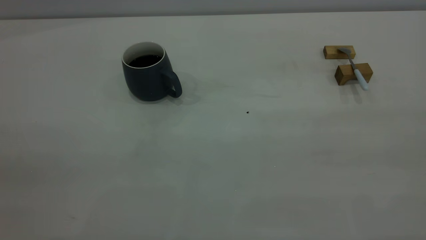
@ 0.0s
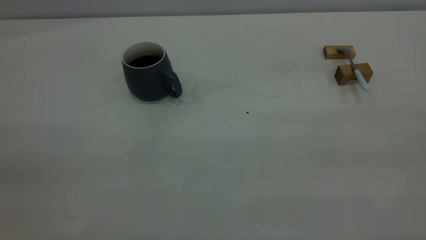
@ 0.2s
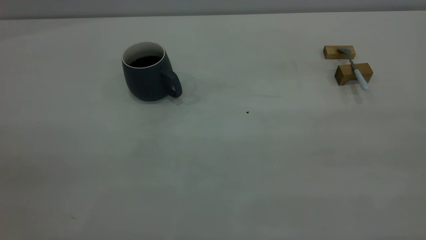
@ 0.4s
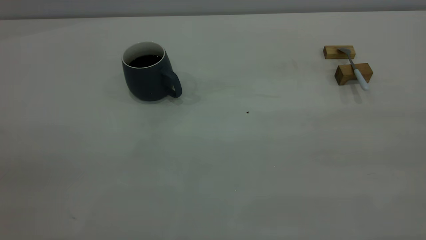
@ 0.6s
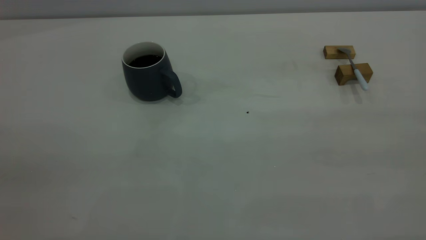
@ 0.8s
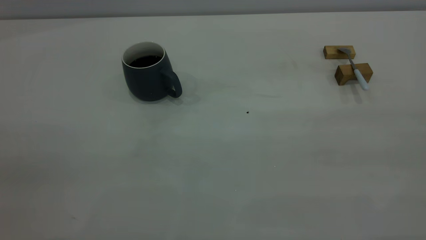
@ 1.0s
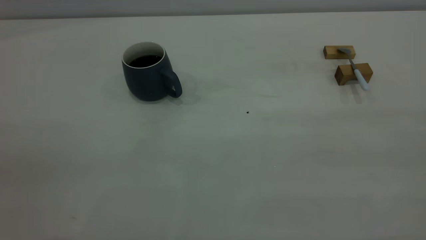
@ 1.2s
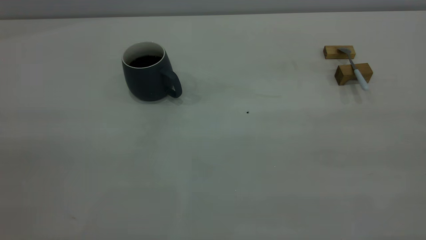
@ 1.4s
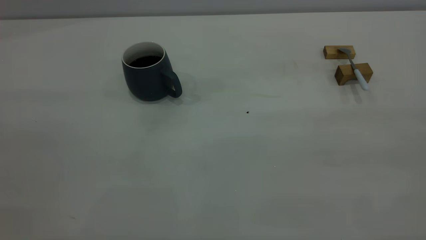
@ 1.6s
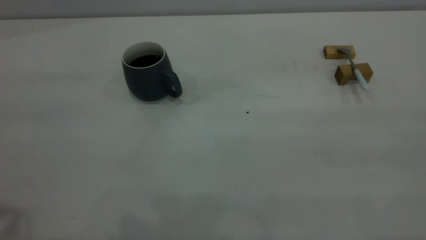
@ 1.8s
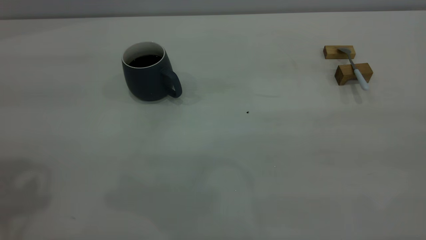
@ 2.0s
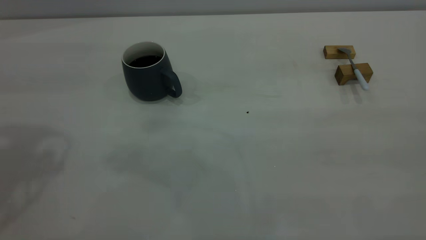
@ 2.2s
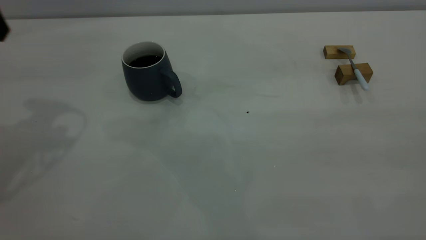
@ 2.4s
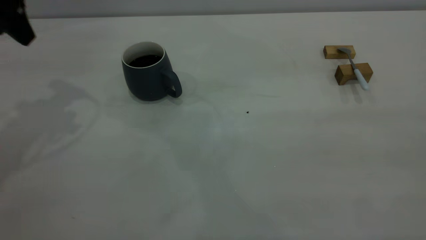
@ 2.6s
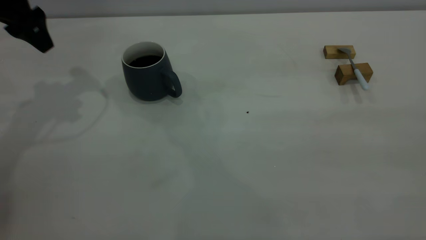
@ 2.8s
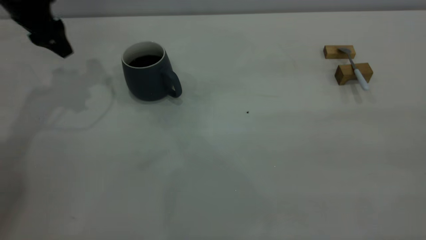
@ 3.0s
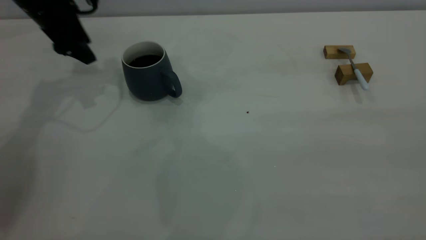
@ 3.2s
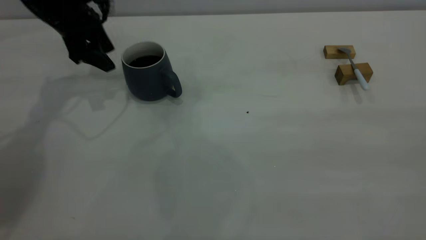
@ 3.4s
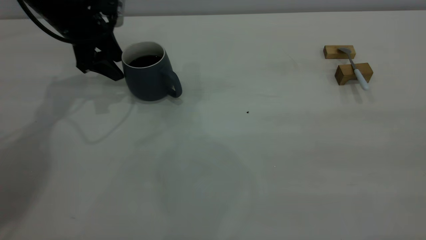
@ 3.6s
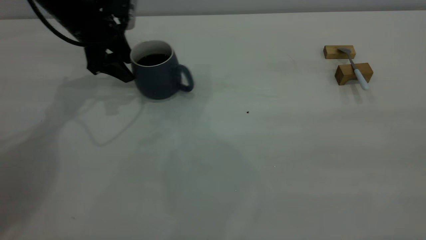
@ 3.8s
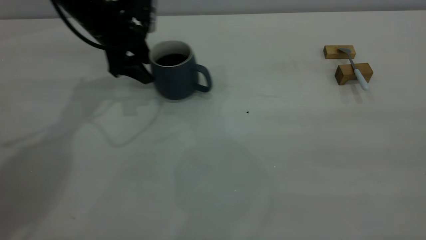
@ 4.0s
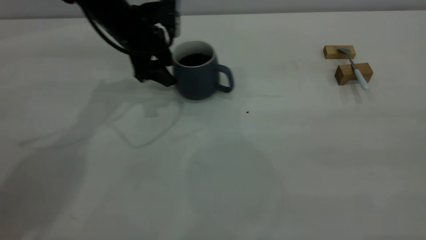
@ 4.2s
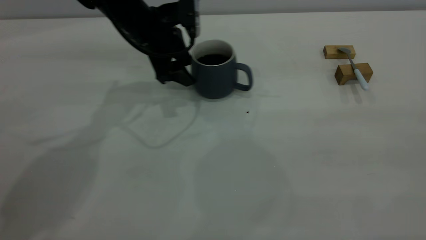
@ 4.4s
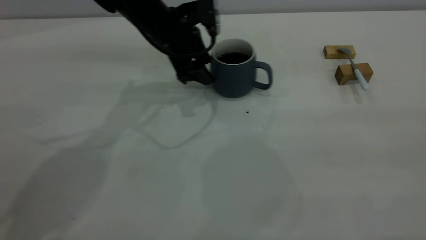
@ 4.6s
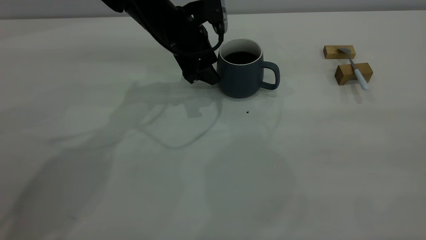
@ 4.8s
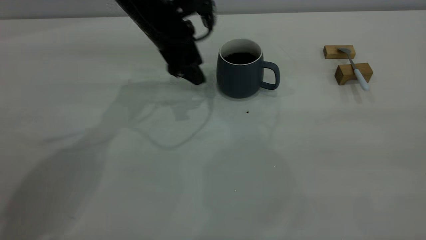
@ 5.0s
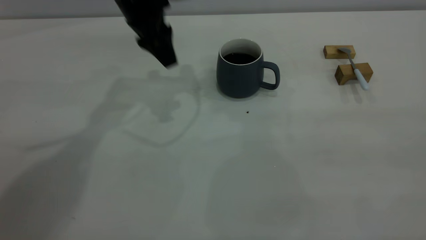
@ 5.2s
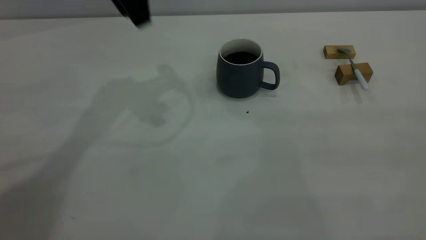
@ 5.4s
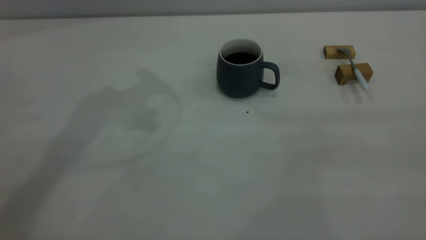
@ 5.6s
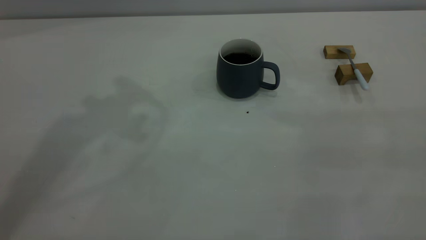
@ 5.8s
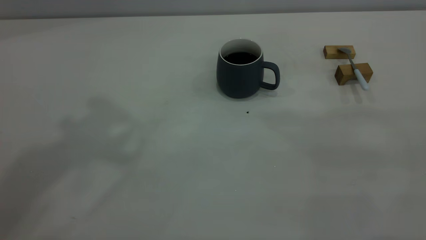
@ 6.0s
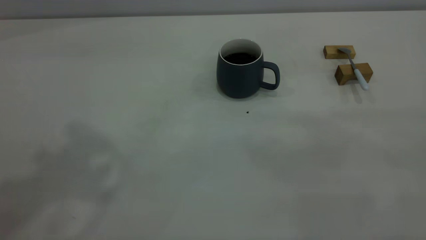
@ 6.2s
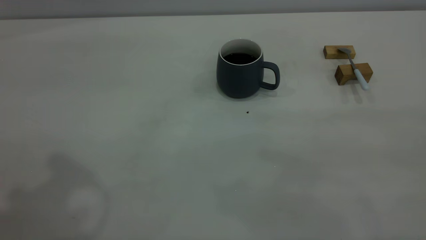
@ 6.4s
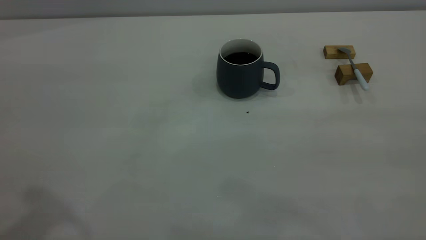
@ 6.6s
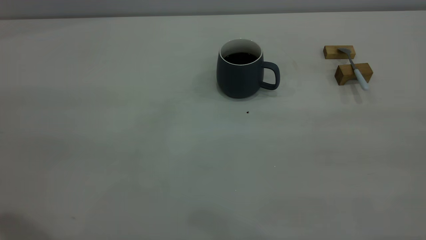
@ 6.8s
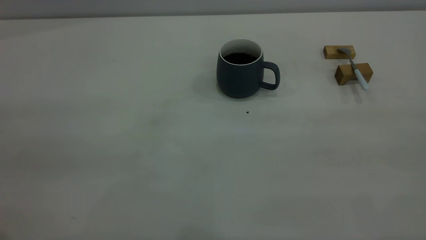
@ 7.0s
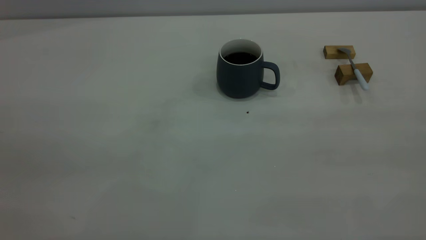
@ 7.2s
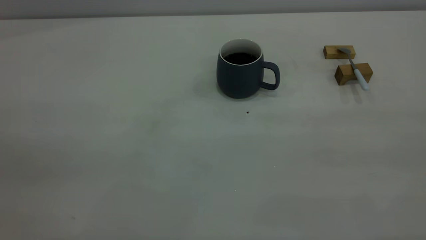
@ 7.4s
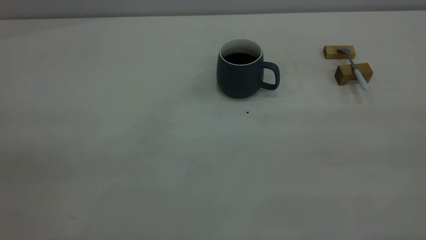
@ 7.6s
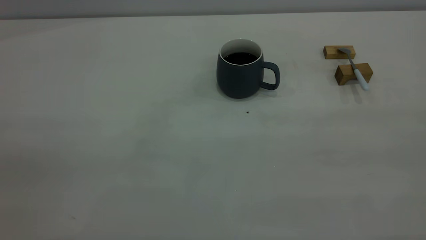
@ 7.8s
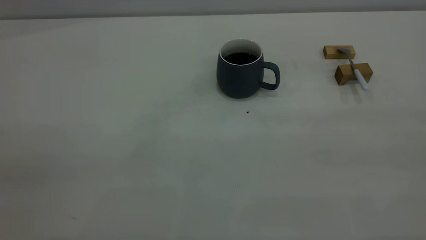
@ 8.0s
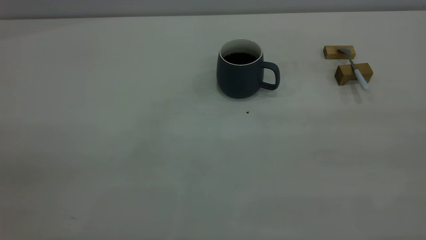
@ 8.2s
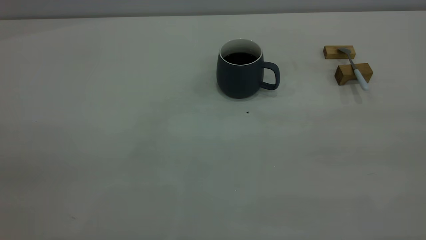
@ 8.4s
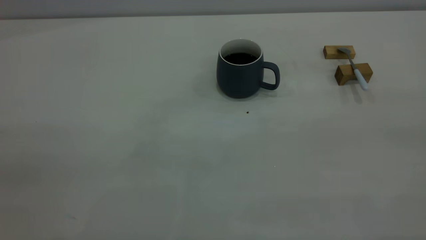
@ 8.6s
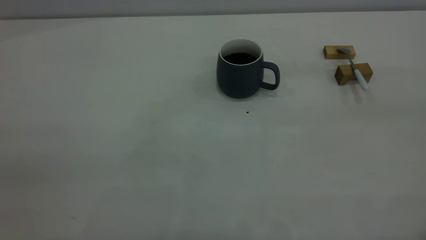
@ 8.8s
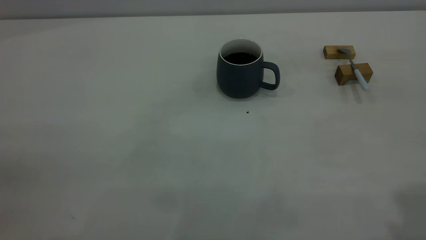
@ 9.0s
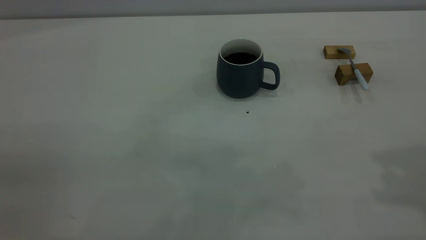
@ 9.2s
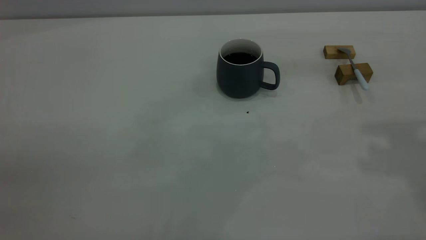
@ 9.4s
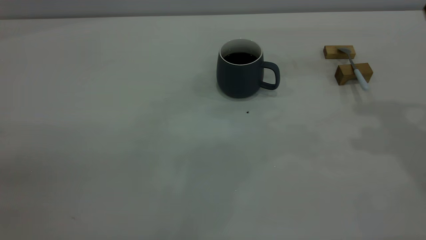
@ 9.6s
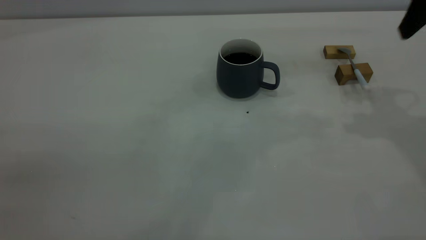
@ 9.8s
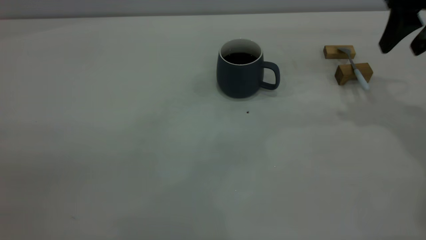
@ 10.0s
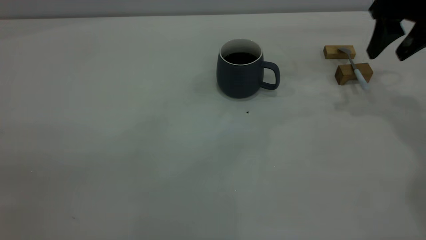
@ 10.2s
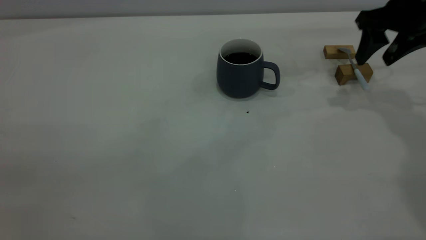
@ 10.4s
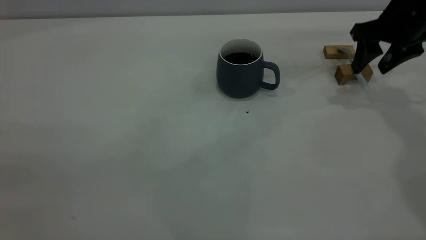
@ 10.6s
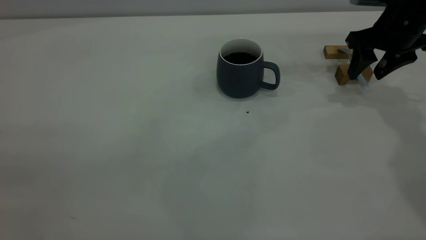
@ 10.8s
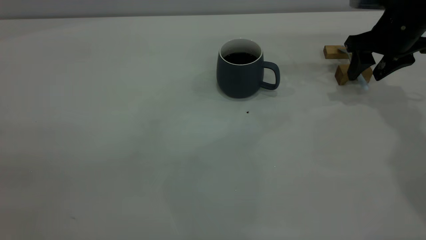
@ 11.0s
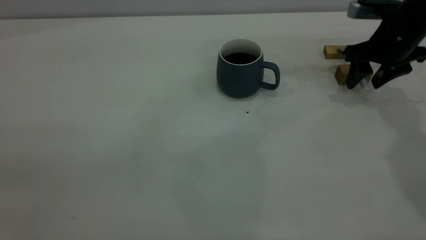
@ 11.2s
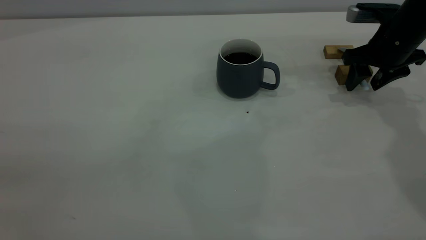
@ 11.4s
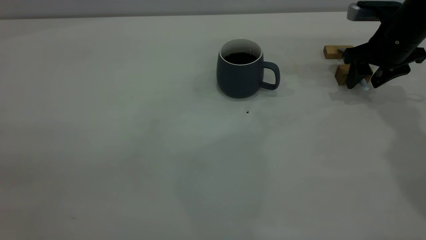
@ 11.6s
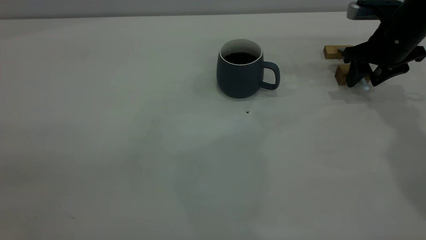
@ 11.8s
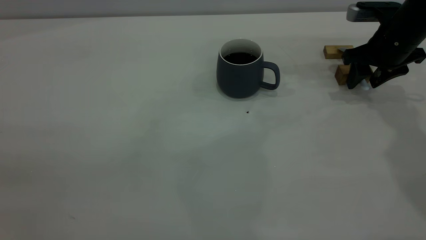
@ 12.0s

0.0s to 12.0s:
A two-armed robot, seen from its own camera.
Step, 0.0s to 5.0s: Move the cup with coffee to the center of view.
1.6s to 3.0s: The left gripper heads forward and downward, covering some 40 cm.
3.0s to 4.4s: The left gripper is displaced to the right and downward by some 20 cm.
4.4s to 6.0s: The left gripper shifts roughly 40 cm upward and backward.
9.0s to 10.4s: The right gripper is displaced forward and downward by some 35 cm.
10.4s to 12.0s: The right gripper shifts approximately 5 cm downward.

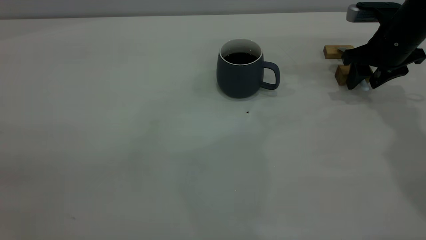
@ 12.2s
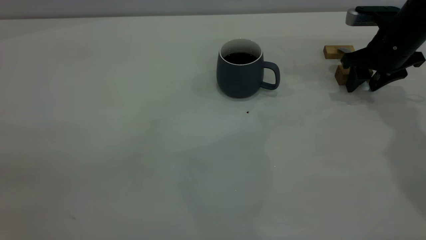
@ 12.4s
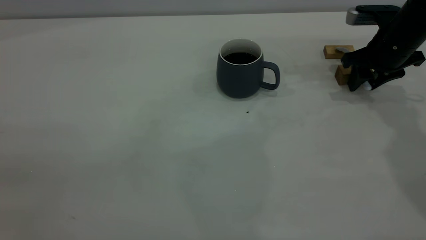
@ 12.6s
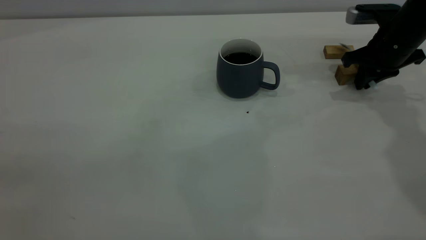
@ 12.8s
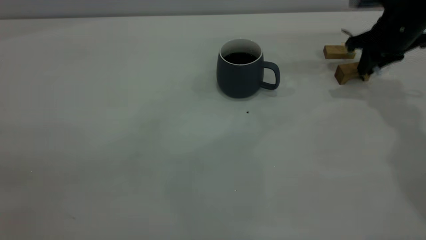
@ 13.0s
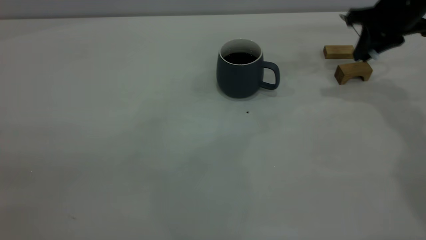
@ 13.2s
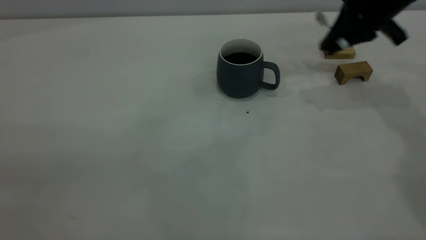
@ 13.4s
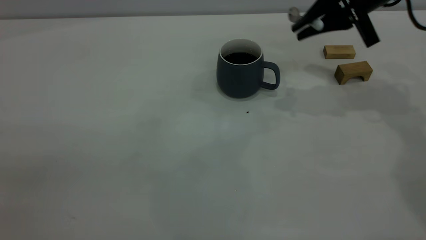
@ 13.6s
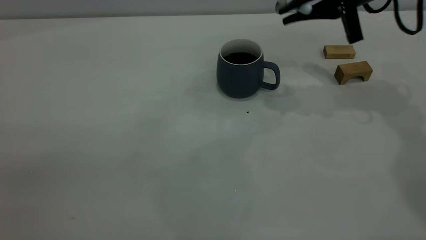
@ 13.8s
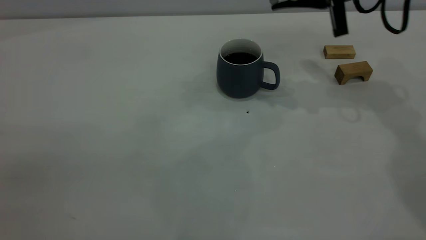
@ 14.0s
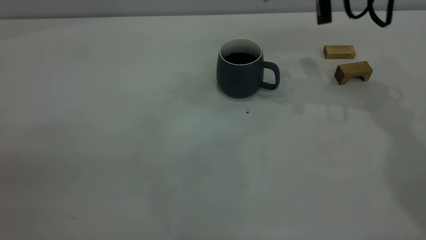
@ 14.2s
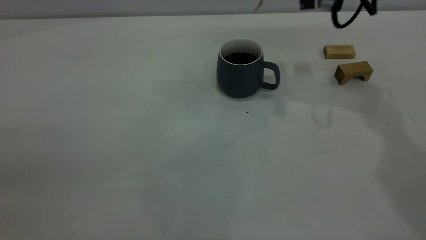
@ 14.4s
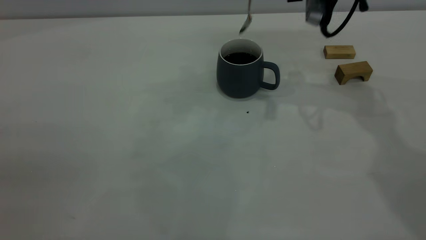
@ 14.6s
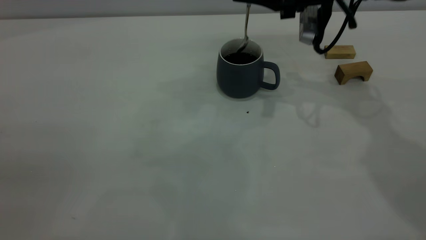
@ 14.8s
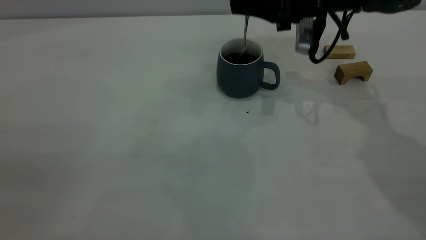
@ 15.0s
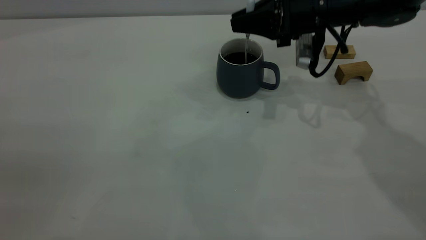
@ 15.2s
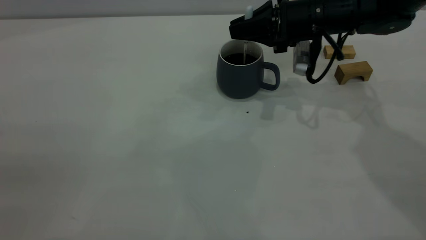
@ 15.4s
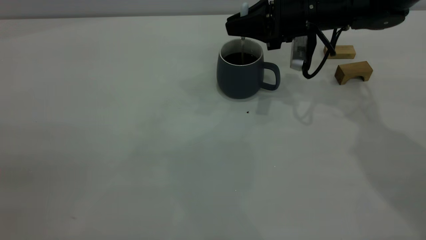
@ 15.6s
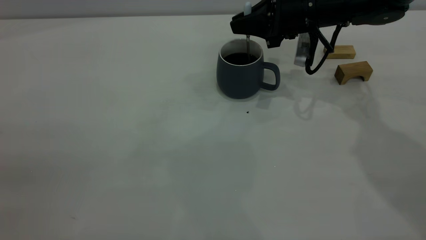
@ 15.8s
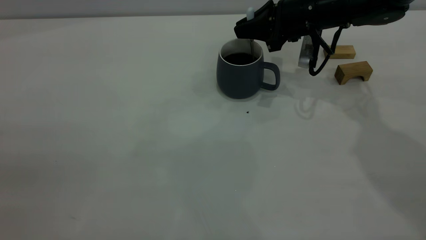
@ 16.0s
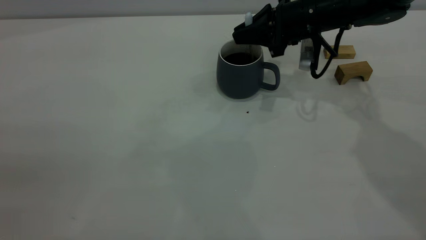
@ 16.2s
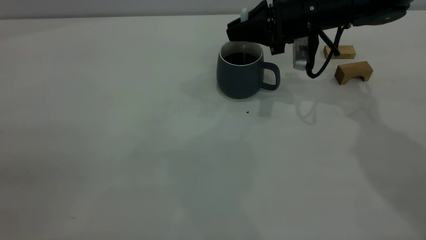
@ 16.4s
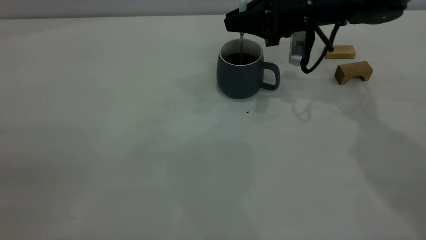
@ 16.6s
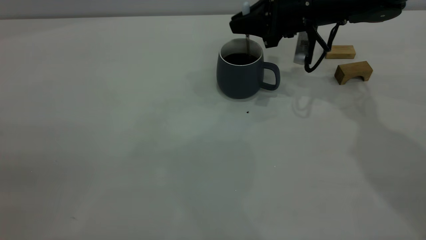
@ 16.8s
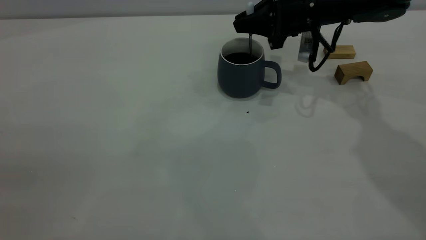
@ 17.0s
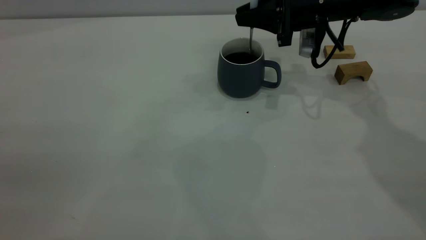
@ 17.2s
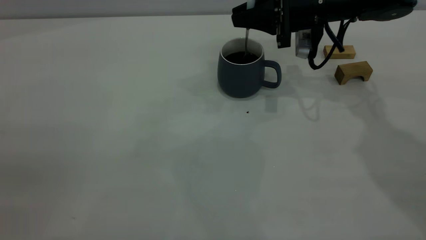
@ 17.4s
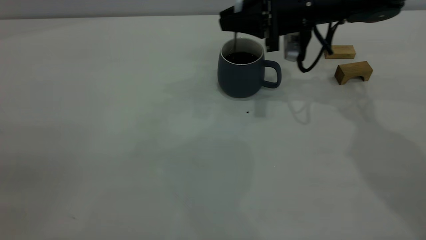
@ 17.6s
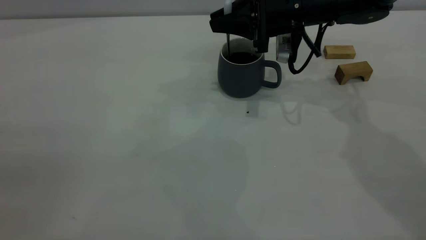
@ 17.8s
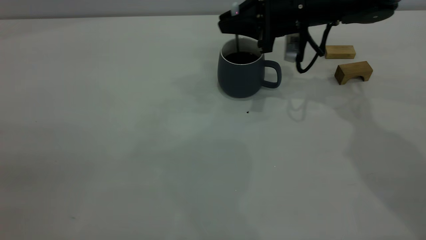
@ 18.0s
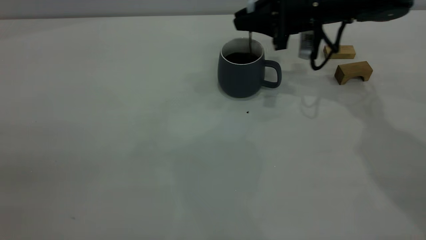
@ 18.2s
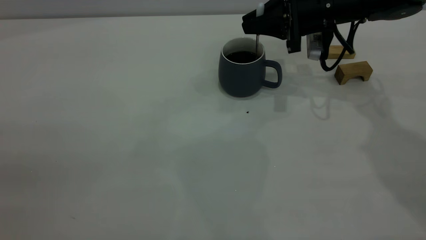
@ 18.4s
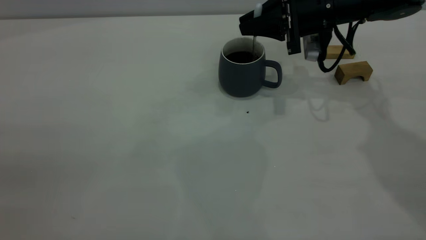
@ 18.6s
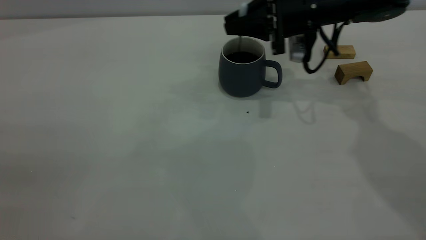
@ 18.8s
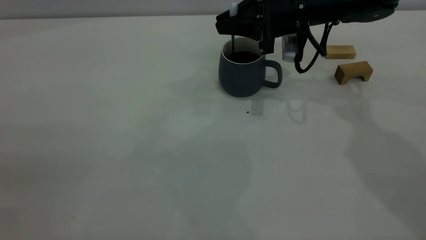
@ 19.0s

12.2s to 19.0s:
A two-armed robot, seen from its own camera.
12.2s to 13.6s: The right gripper heads upward and to the left, covering about 10 cm, and closes up.
13.6s to 15.0s: The right gripper goes roughly 5 cm to the left.
15.0s to 19.0s: The grippers make only small movements.
